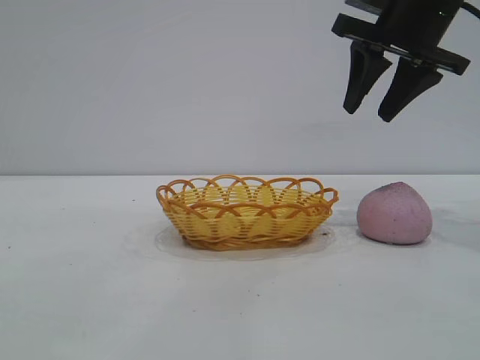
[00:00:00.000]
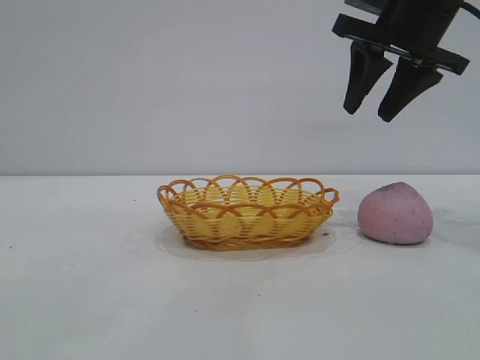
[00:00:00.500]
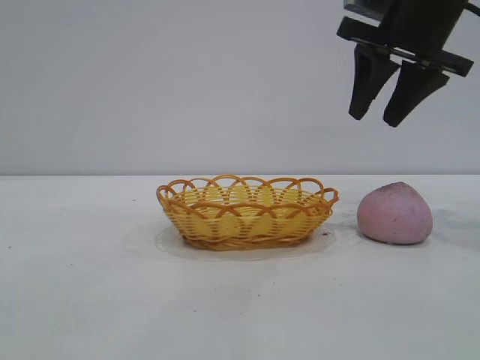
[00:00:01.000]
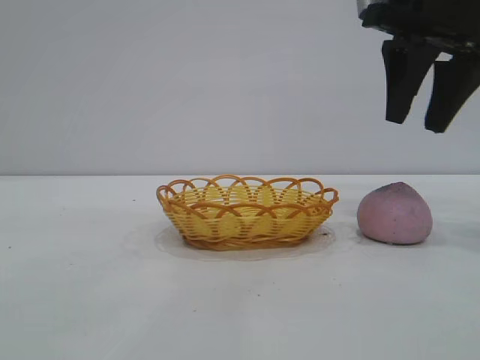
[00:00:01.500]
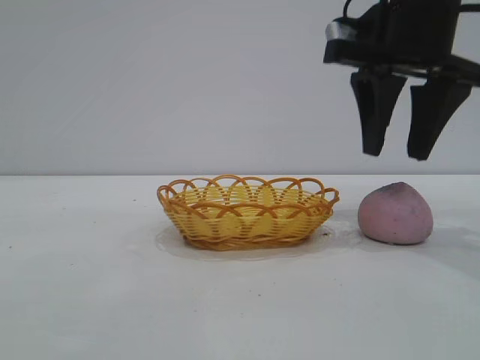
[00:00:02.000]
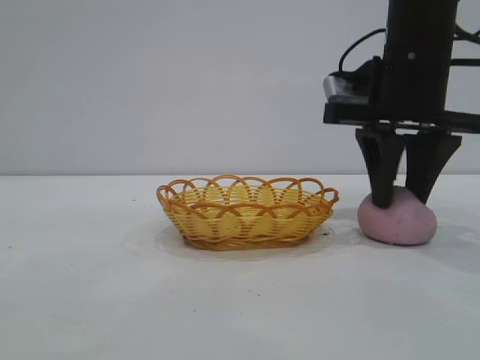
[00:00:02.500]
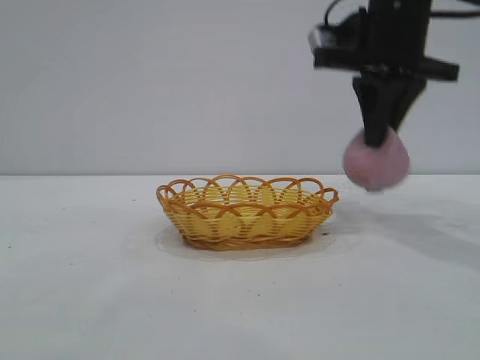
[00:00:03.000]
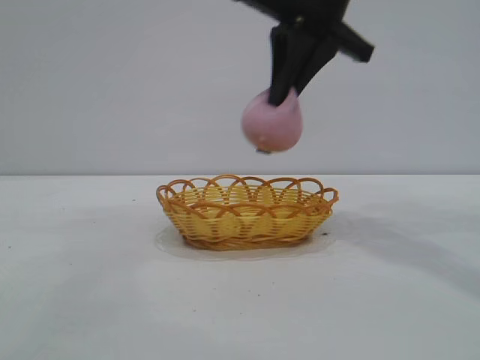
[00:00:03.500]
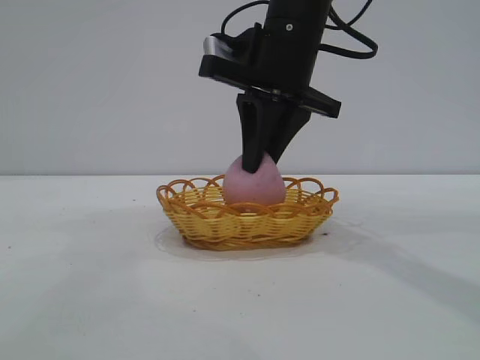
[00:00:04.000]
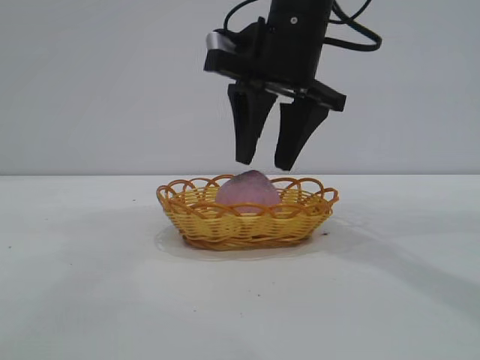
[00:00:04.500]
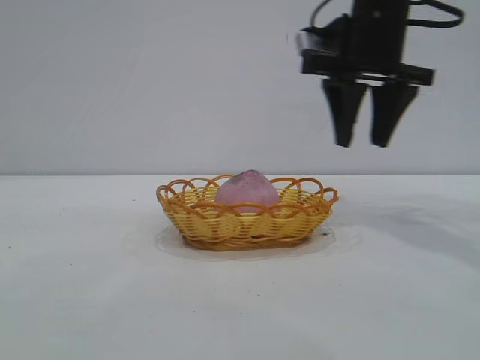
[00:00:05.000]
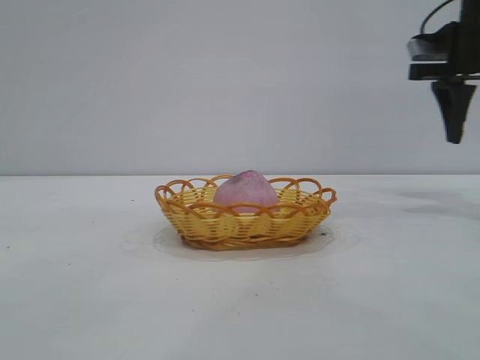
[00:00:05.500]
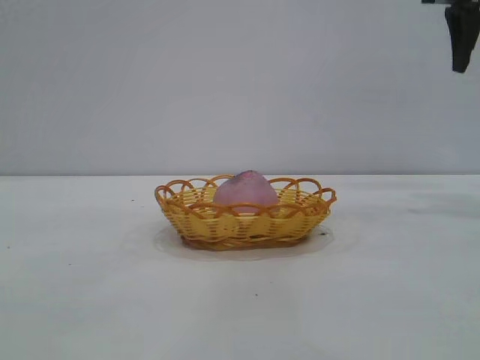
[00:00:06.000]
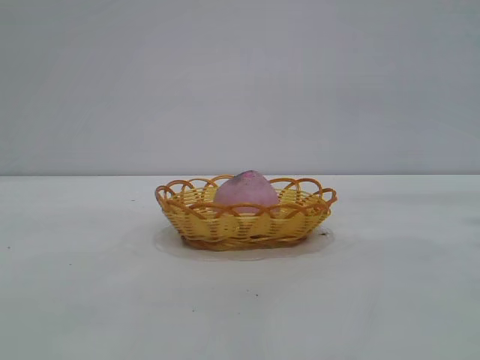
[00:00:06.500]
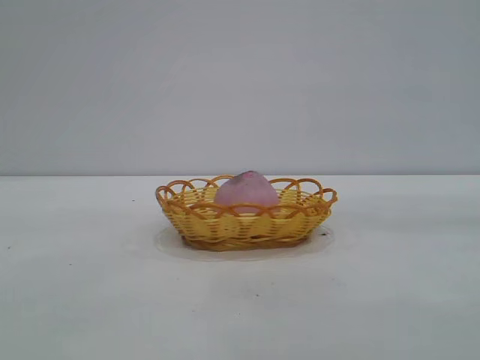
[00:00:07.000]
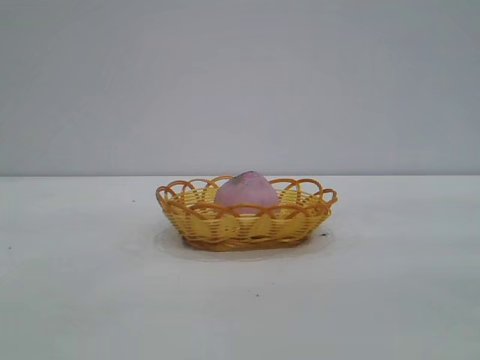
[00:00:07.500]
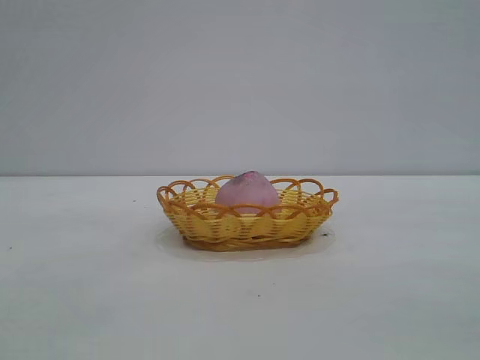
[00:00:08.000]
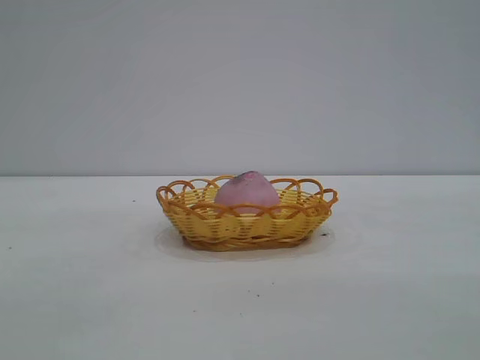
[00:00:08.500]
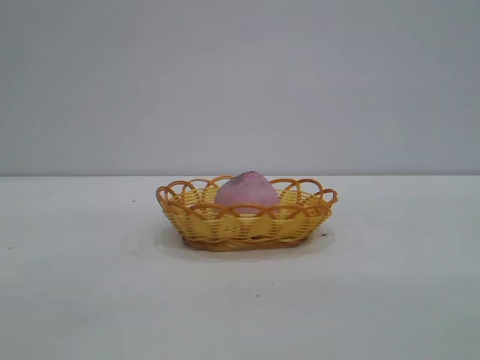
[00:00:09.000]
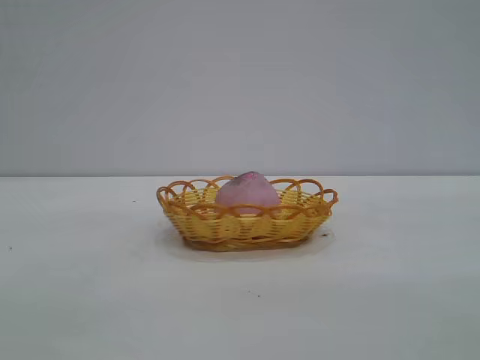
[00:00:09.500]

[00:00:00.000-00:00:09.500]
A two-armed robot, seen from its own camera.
Task of the whole recording: pick up the peach and put it into the basket.
Step, 00:00:00.000 to 00:00:02.500: Pick up the peach.
Step, 00:00:03.000 to 00:00:04.500: place the peach into the basket.
